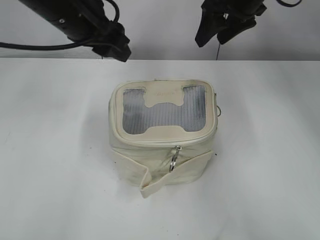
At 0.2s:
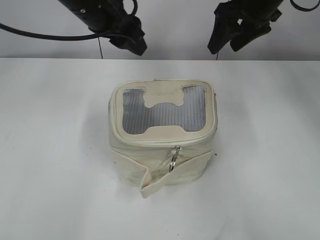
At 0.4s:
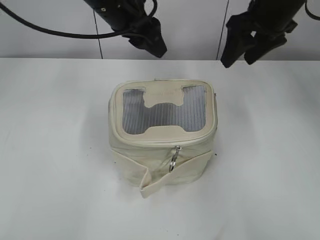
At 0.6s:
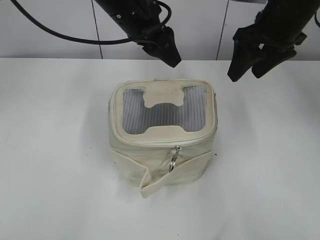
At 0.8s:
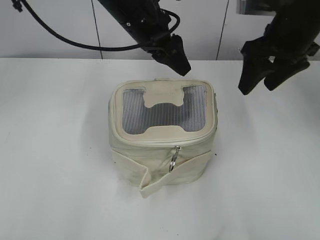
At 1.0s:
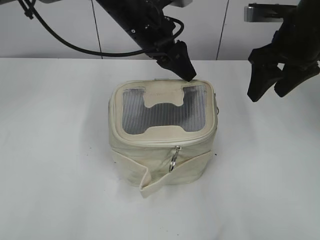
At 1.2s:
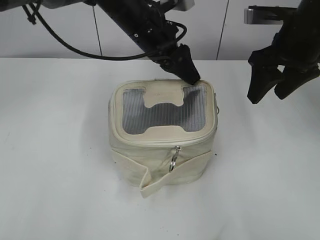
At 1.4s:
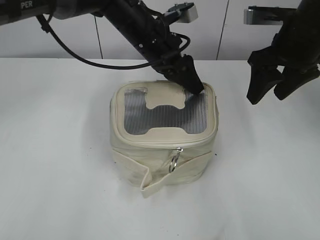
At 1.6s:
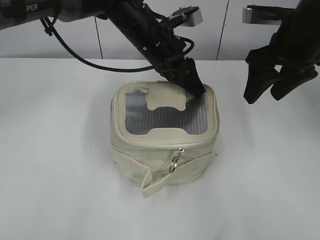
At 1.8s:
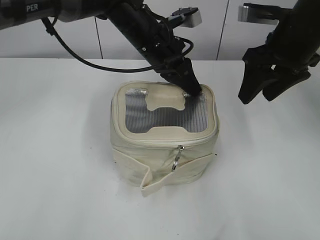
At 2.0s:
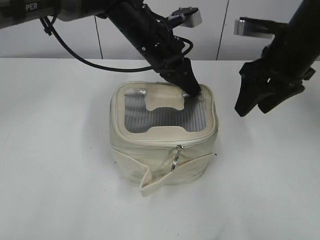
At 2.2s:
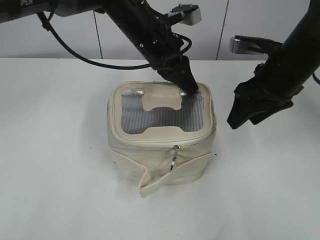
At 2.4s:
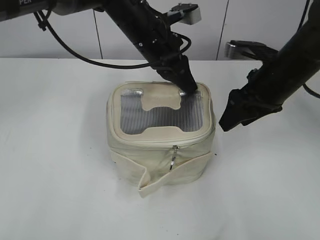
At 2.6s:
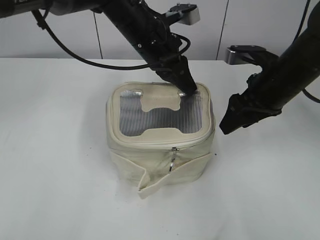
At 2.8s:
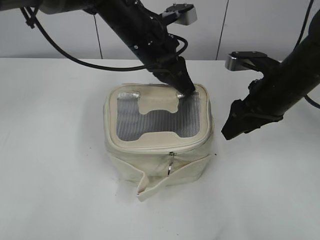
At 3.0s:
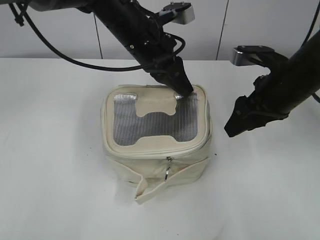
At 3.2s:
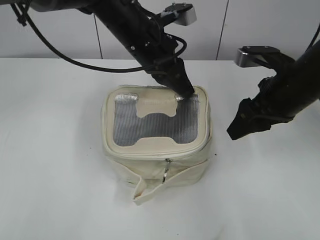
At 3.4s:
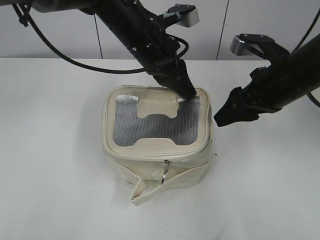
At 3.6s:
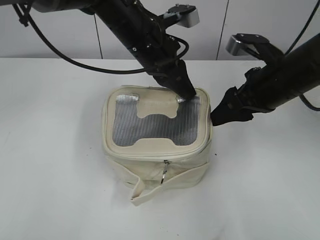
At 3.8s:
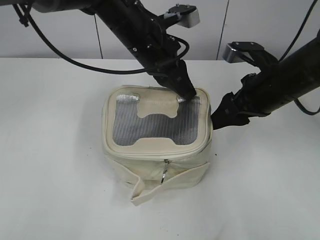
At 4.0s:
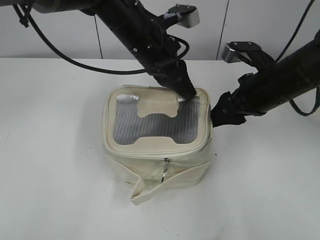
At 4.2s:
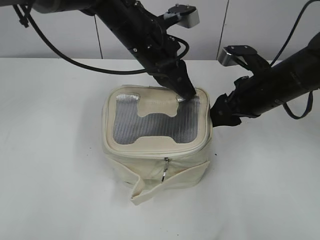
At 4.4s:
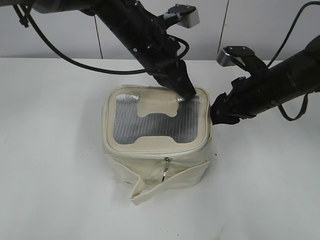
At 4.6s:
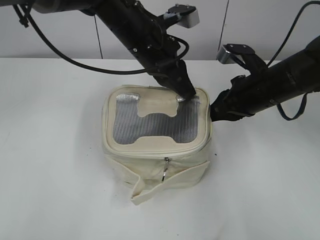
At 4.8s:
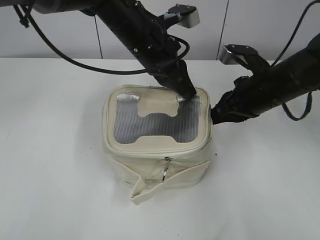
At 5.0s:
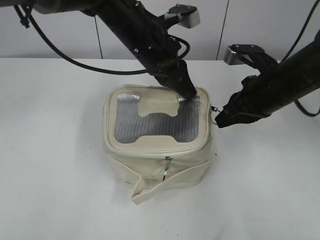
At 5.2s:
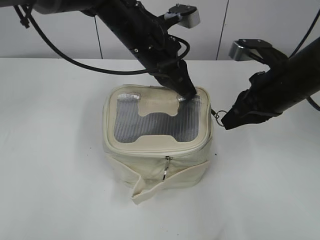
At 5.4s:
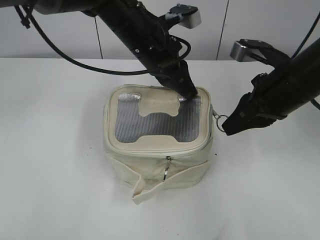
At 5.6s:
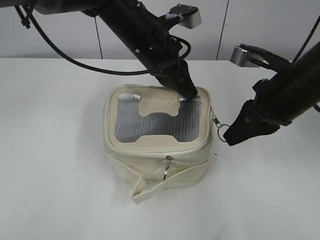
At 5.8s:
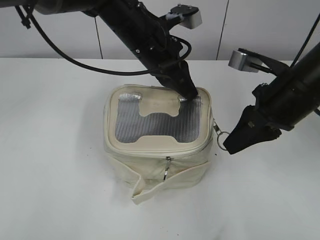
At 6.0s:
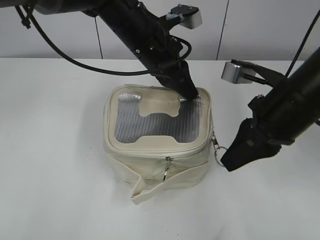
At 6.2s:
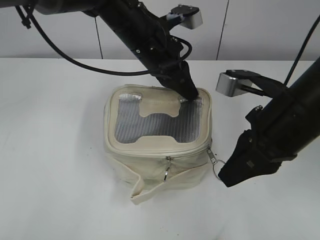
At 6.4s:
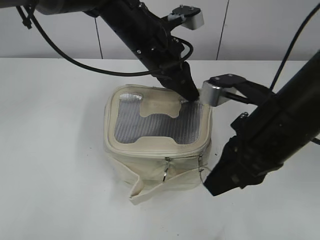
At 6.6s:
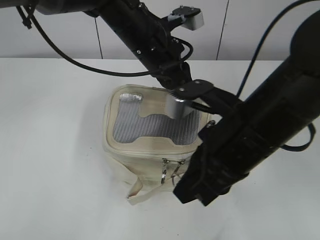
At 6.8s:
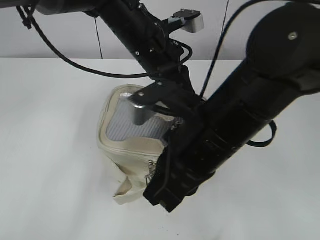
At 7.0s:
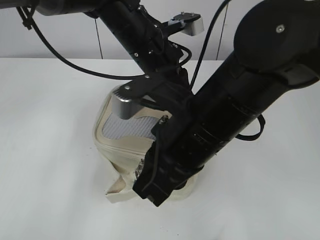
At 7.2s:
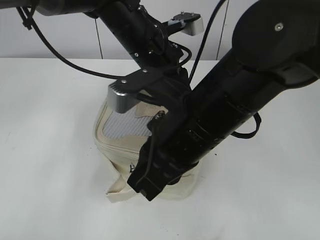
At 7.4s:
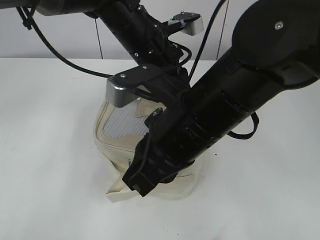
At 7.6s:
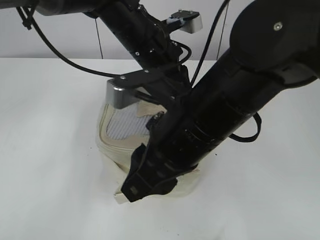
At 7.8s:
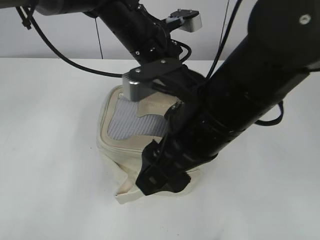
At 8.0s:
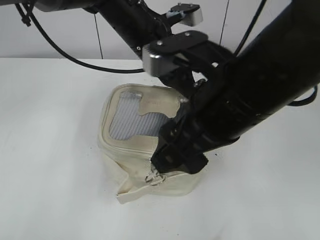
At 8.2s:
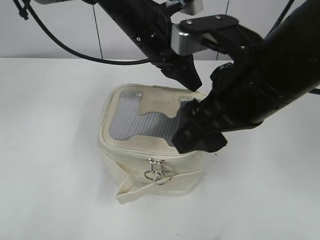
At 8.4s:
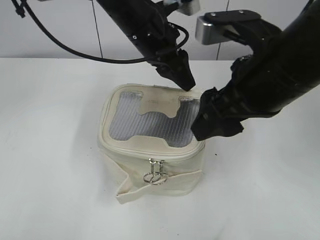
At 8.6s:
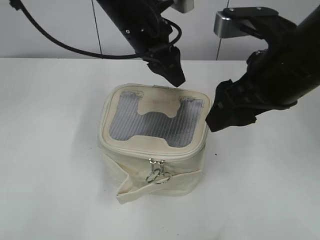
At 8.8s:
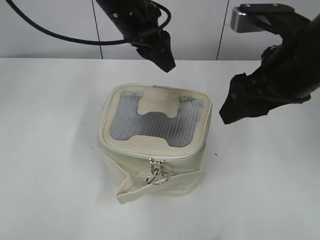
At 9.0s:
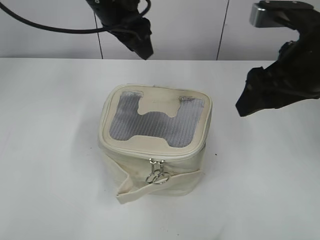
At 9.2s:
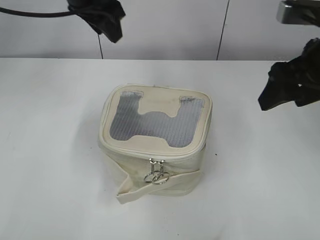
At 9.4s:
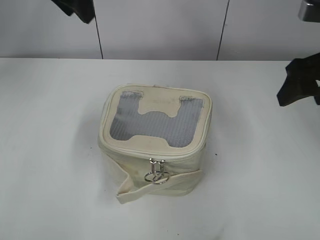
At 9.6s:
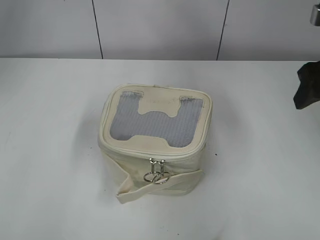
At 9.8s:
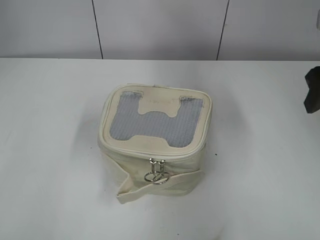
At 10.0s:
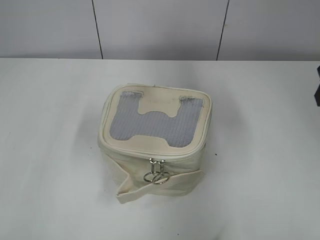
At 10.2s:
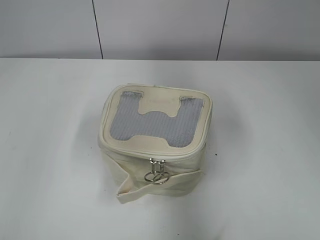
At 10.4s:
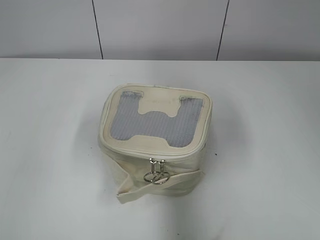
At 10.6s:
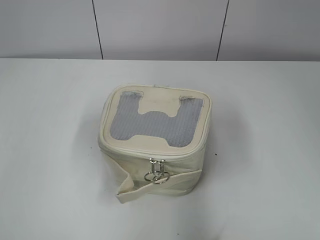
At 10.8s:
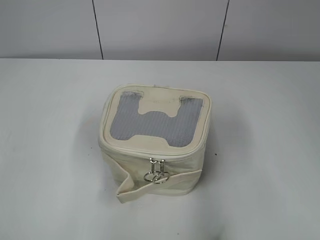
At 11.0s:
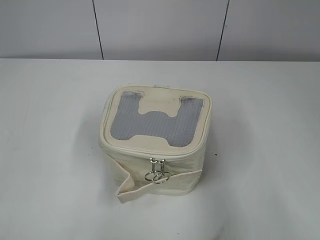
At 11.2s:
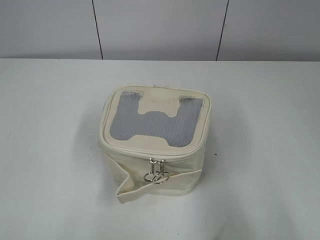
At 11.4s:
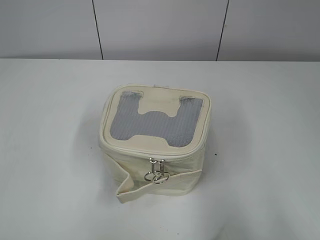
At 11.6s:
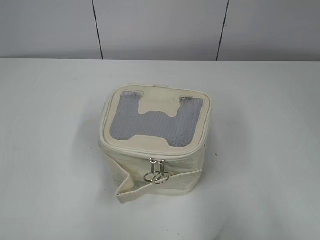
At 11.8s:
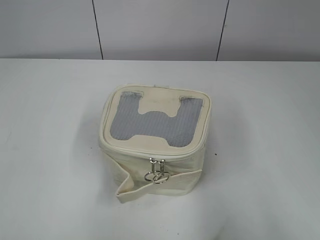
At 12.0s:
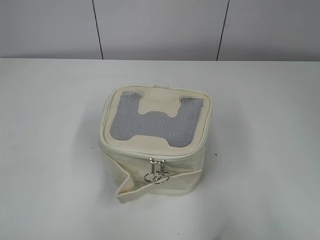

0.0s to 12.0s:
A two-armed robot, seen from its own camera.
Step, 0.0s to 7.6s: Zip up the bag with your right hand.
Step, 7.8s to 8.2s: Hold the bag with your left hand.
0.0s to 1.6s: The left gripper travels to the right, downward and forward by roughly 15 cm. The right gripper moves backward and to the right, roughly 10 cm.
1.6s to 3.0s: The right gripper goes approximately 5 cm downward, while the left gripper closes up.
3.0s to 4.4s: The grippers move only a little.
4.4s to 6.0s: The right gripper moves backward, some 10 cm, and closes.
6.0s to 7.6s: The right gripper travels to the left and backward by about 15 cm, and opens up.
7.6s to 9.0s: The right gripper travels to the right and forward by approximately 15 cm, and opens up; the left gripper goes about 10 cm upward and to the left, and opens.
9.0s to 10.4s: The left gripper shifts some 35 cm to the left and backward. Meanwhile the right gripper travels to the right and backward by roughly 10 cm.
10.4s to 12.0s: The right gripper heads backward, covering some 20 cm, while the left gripper shifts some 20 cm backward and downward.

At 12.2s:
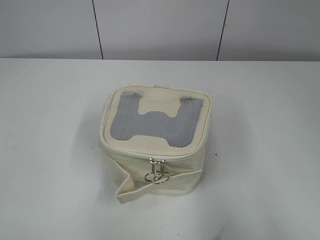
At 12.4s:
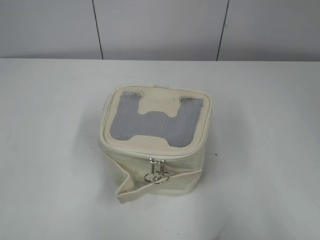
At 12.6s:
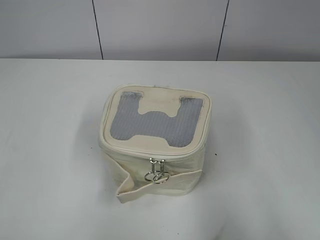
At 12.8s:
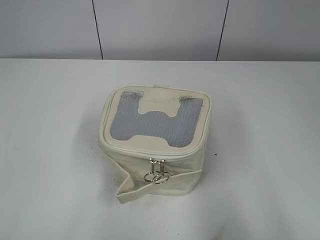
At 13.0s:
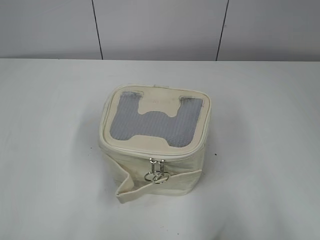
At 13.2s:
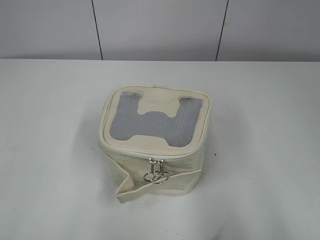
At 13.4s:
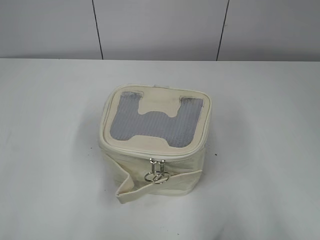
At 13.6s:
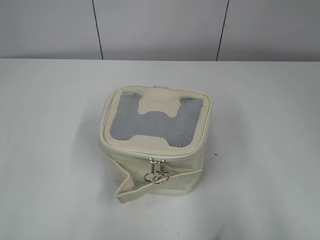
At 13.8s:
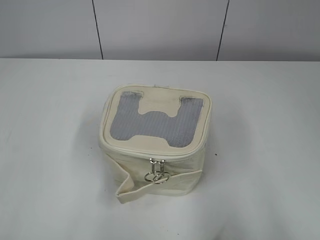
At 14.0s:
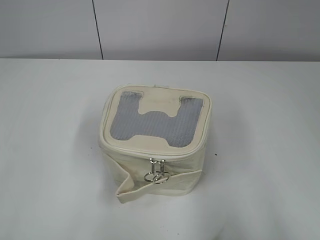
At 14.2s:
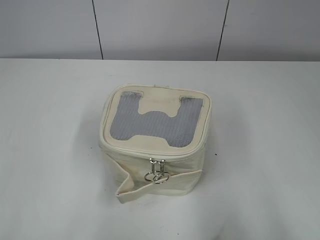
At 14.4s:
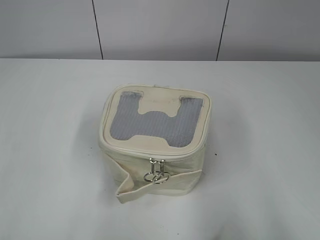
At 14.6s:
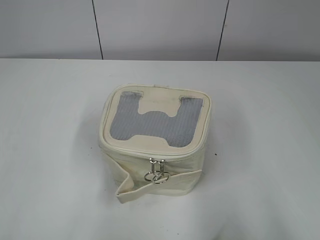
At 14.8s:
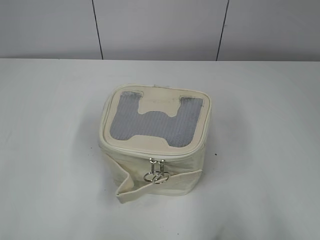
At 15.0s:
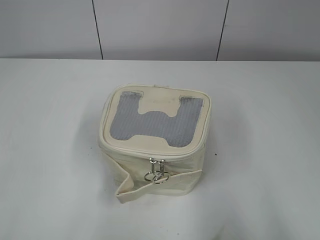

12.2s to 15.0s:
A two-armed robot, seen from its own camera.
13.6s to 15.0s: Both grippers stay put.

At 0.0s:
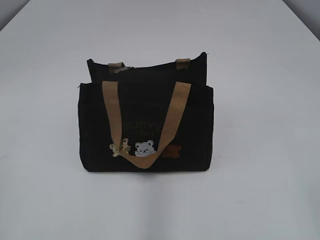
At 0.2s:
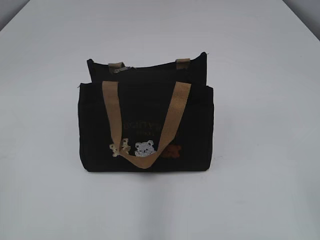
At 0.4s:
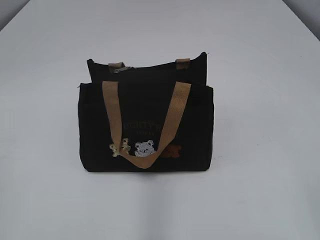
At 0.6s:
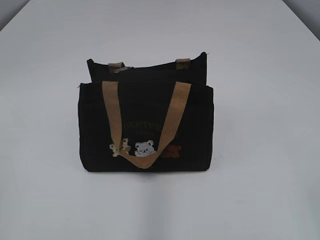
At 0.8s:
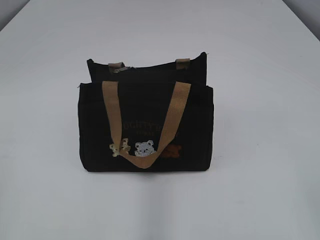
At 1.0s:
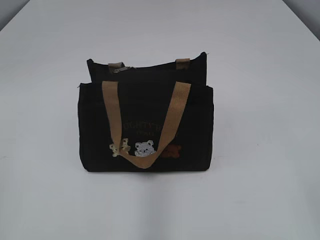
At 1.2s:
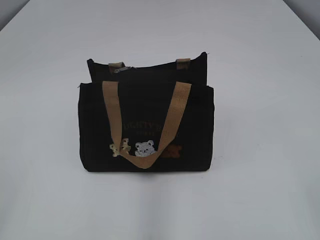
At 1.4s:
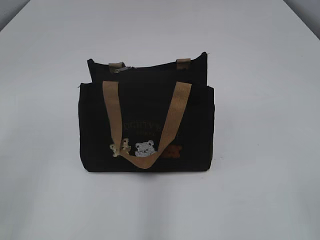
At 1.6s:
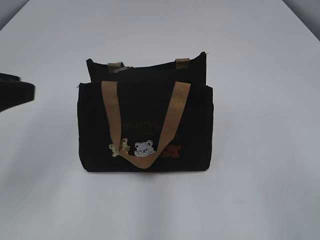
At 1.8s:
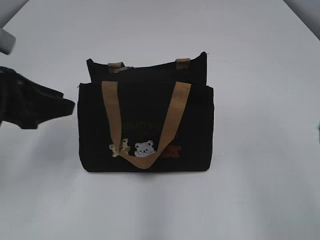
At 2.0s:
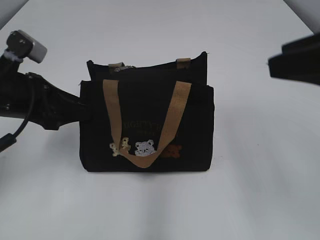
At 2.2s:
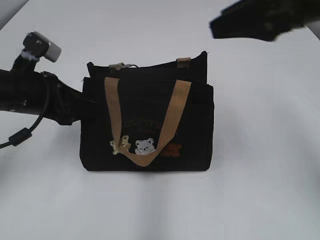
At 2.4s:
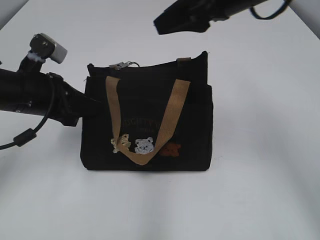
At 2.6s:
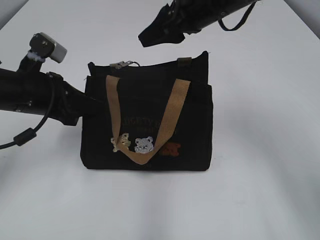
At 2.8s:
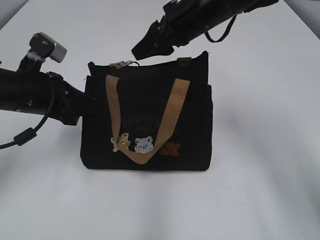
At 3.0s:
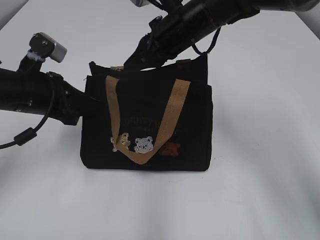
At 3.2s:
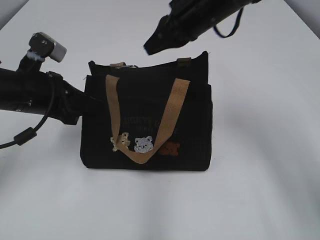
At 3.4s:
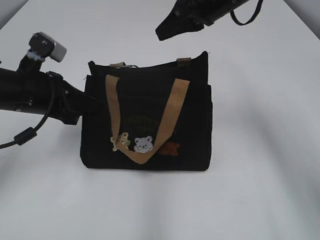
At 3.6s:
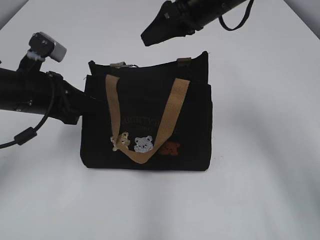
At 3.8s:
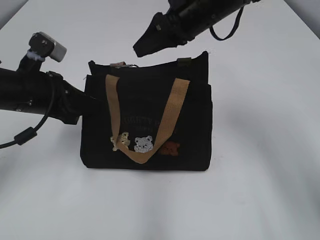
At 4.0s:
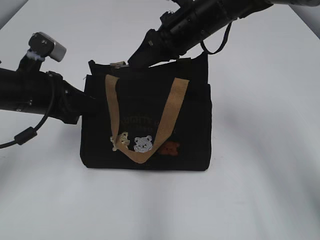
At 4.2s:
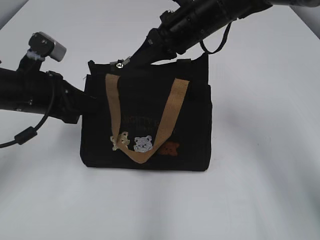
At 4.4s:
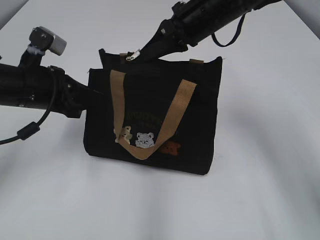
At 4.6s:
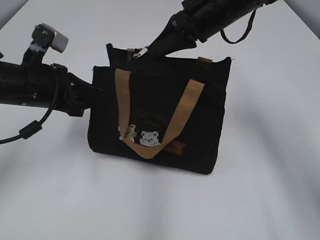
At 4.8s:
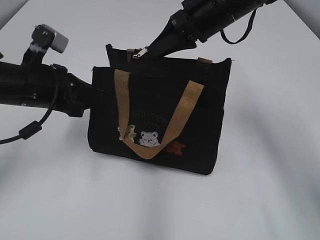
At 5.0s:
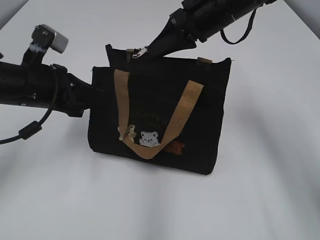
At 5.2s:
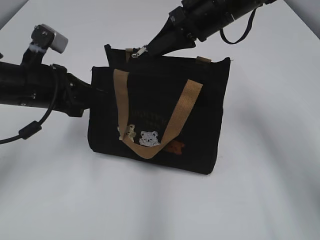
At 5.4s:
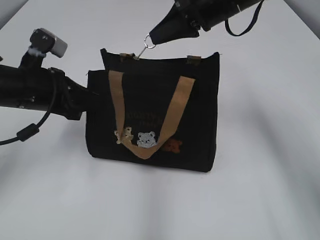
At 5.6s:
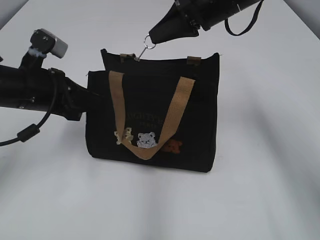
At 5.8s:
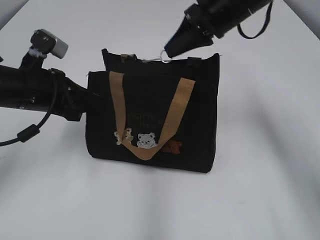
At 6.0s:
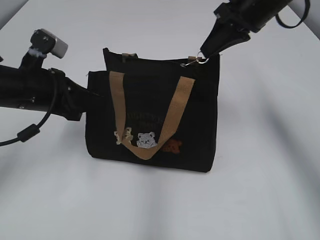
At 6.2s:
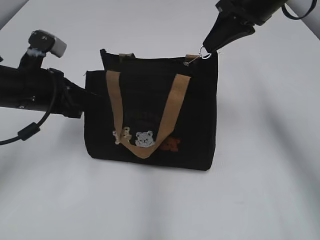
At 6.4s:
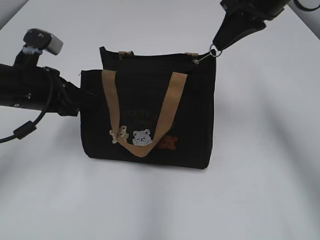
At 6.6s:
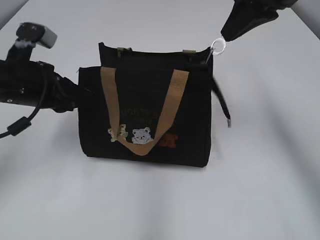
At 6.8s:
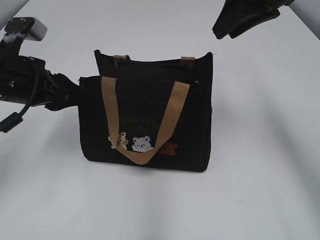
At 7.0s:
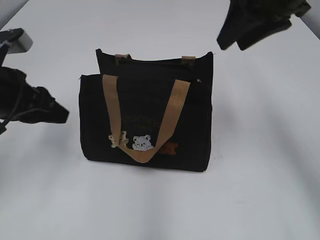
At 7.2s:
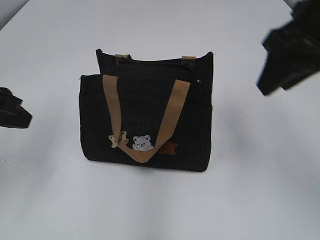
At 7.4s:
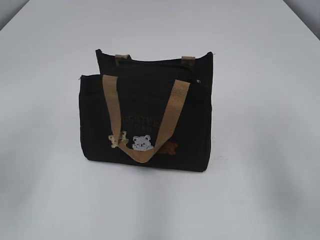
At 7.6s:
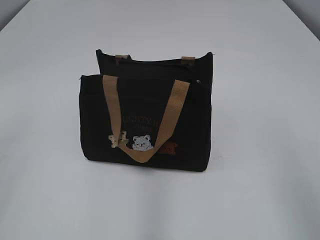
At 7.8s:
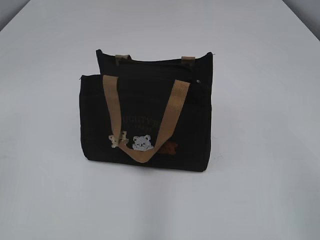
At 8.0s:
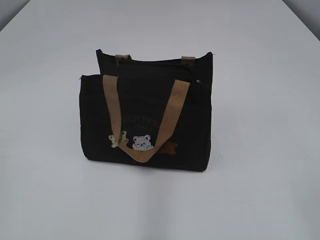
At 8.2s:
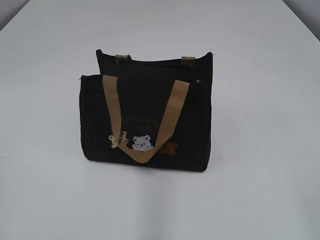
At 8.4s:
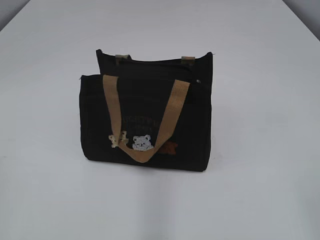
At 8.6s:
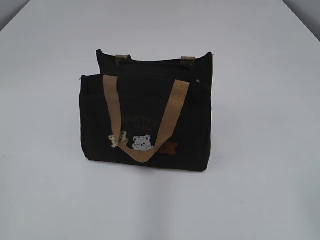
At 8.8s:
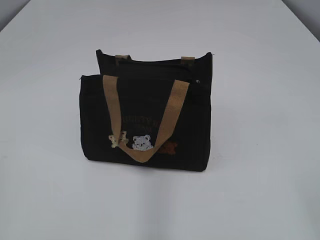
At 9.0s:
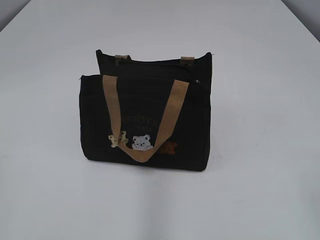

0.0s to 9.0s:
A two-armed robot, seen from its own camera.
Step, 0.0s to 6.4s: Pull open the zipper with your right hand.
1.6s to 3.0s: The left gripper heads forward, downward and to the right, covering roughly 15 cm, and closes its fingers. Meanwhile the right gripper goes roughly 40 cm forward and to the left, and closes.
3.0s to 4.4s: The right gripper opens and closes again.
4.4s to 6.0s: The right gripper is displaced to the right by approximately 5 cm.
6.0s to 7.6s: The left gripper shifts roughly 30 cm backward, upward and to the left, and opens; the right gripper moves backward, about 30 cm, and opens its fingers.
7.6s to 9.0s: The right gripper is displaced backward by approximately 10 cm.
